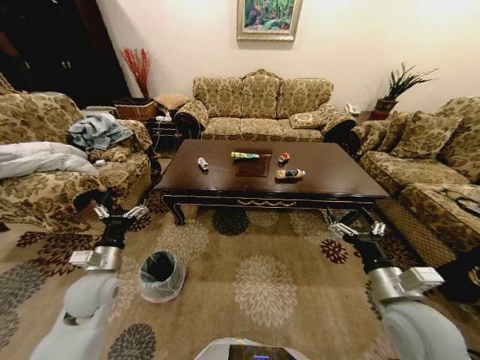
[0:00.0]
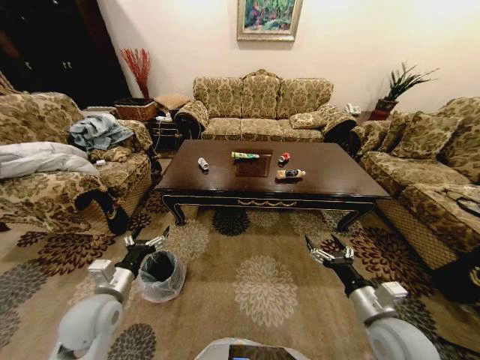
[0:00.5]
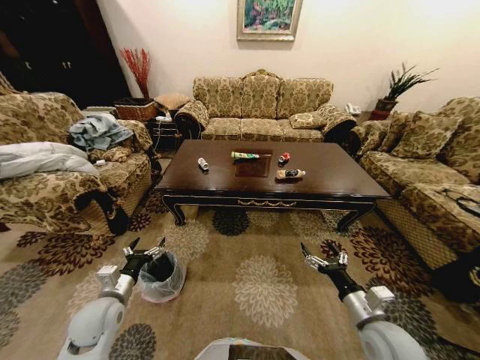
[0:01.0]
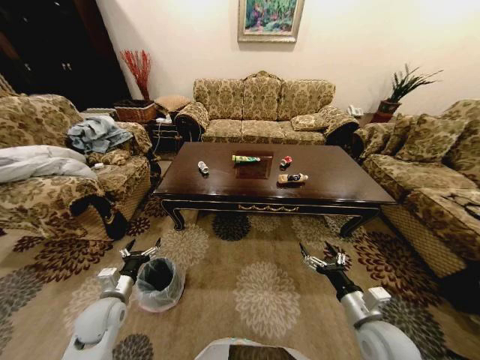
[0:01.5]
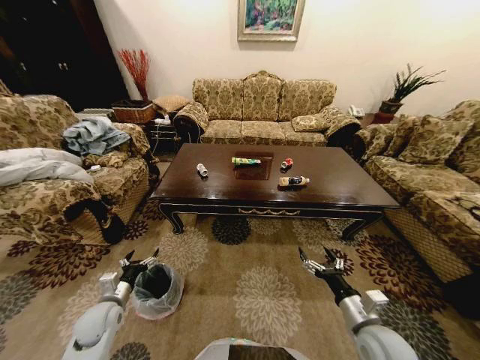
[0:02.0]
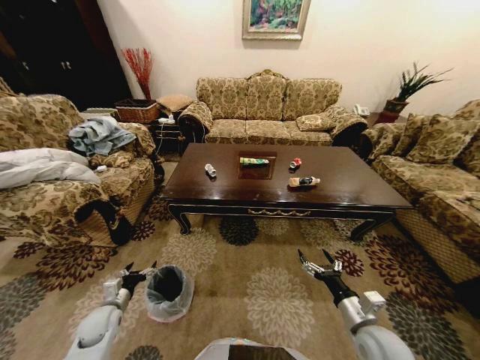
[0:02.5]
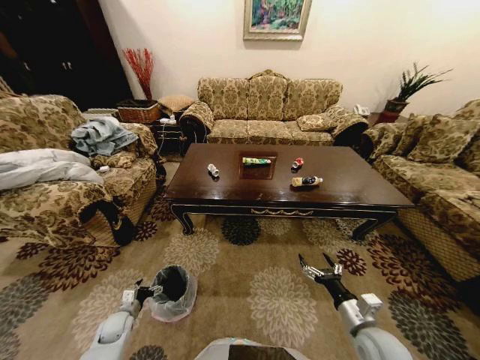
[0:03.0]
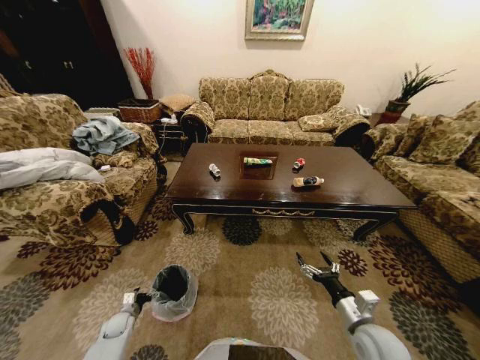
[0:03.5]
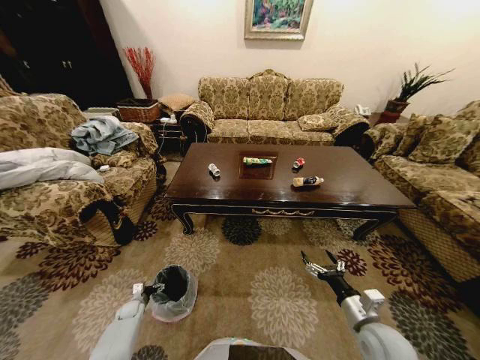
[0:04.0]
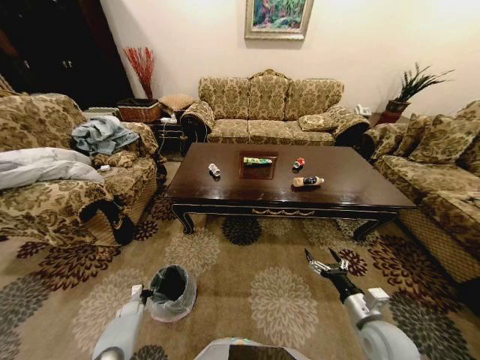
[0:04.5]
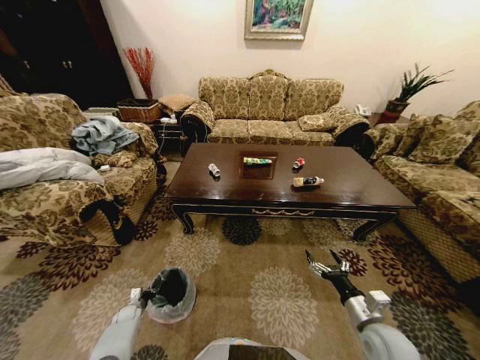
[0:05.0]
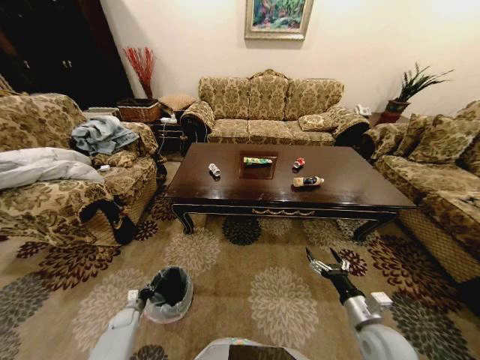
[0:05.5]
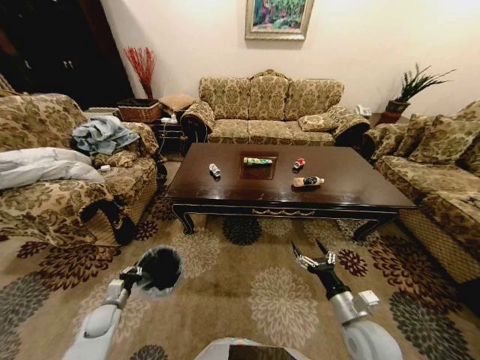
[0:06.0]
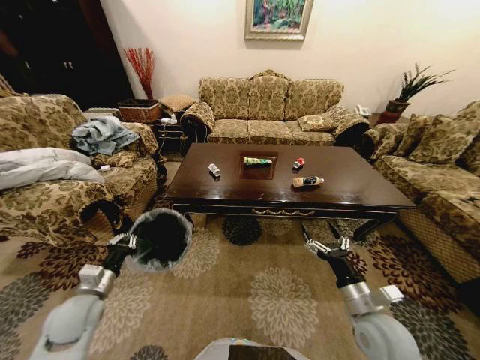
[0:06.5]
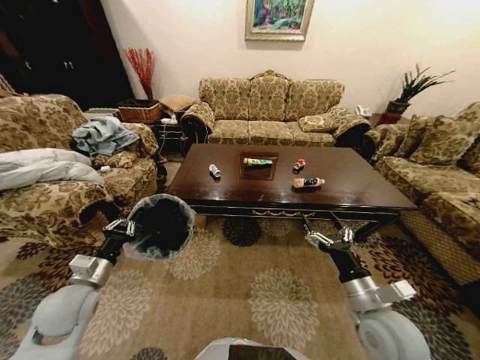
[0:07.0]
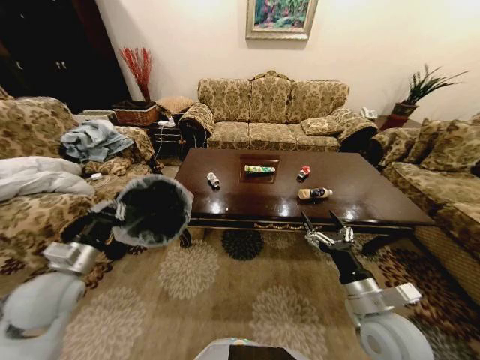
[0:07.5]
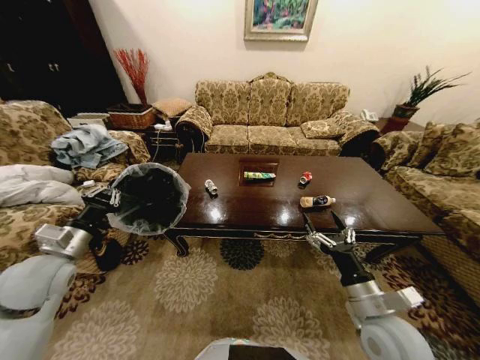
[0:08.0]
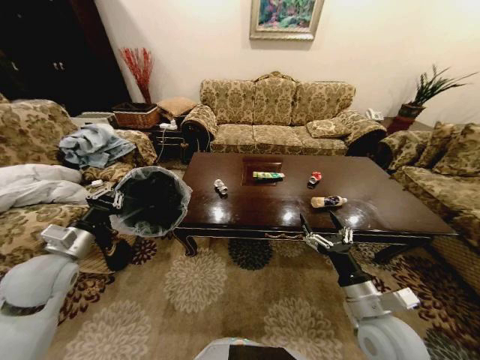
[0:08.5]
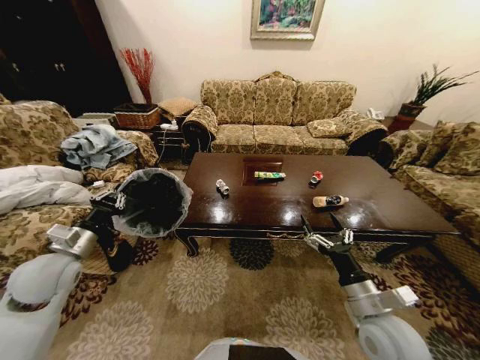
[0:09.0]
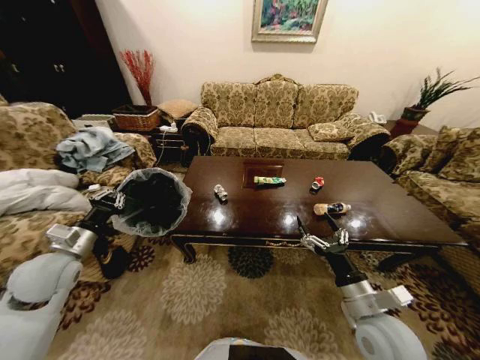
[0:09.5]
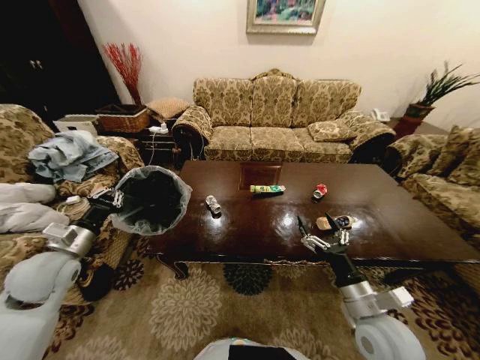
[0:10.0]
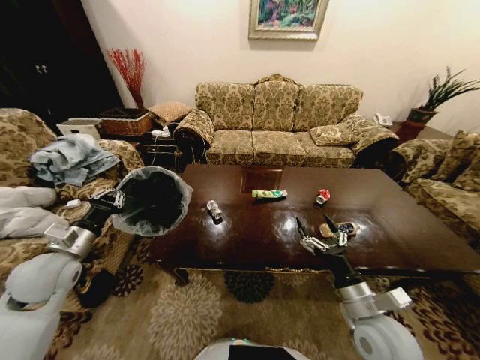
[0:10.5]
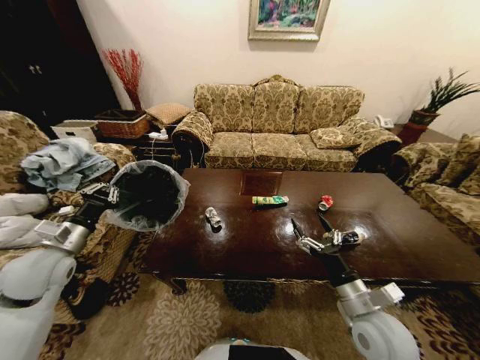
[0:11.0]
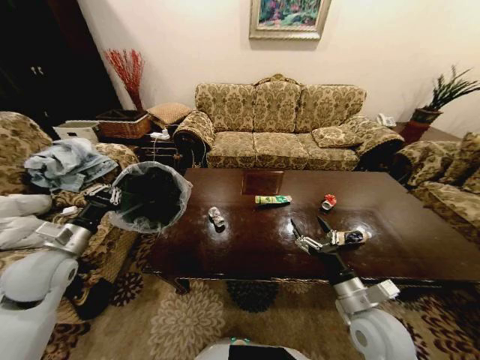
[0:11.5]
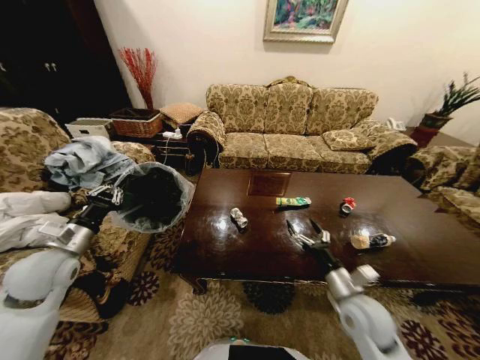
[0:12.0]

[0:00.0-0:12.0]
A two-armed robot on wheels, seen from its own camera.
Task of the whole recording: Move to the front of the table and place the trash on the table into the trash bin.
0:02.0 to 0:04.0: The left gripper heads downward, covering some 25 cm.
0:04.0 to 0:06.0: The left gripper is displaced upward by roughly 15 cm, and closes.
0:06.0 to 0:08.0: The right gripper goes some 10 cm upward; the left gripper heads upward, covering roughly 30 cm.
0:10.0 to 0:12.0: The right gripper moves forward, about 5 cm.

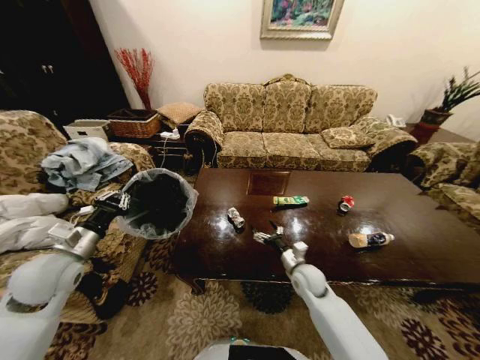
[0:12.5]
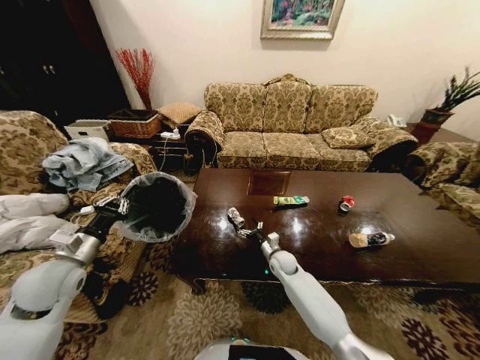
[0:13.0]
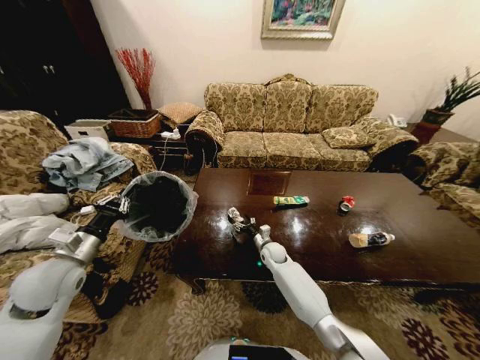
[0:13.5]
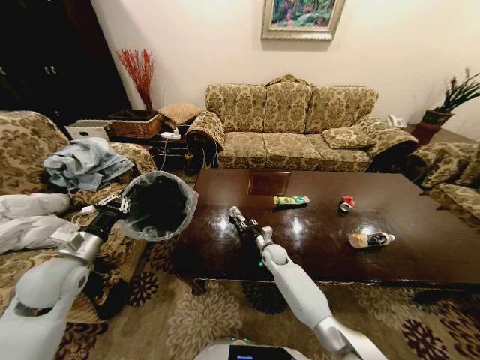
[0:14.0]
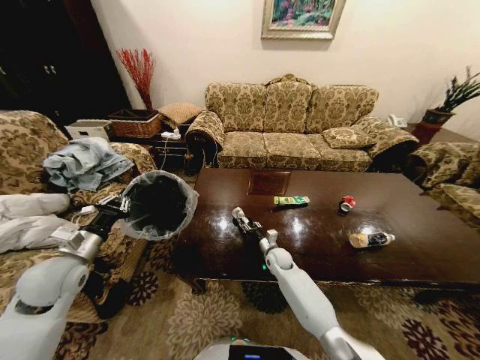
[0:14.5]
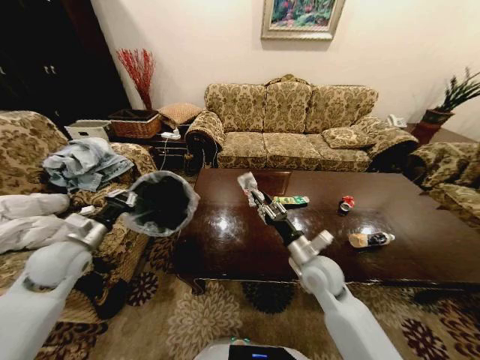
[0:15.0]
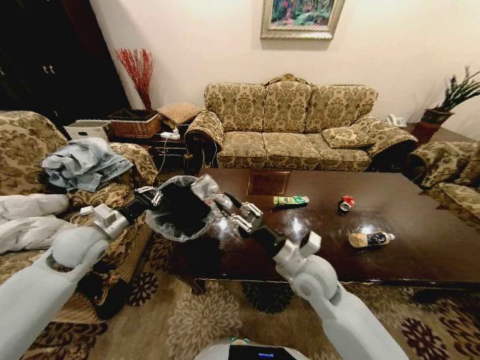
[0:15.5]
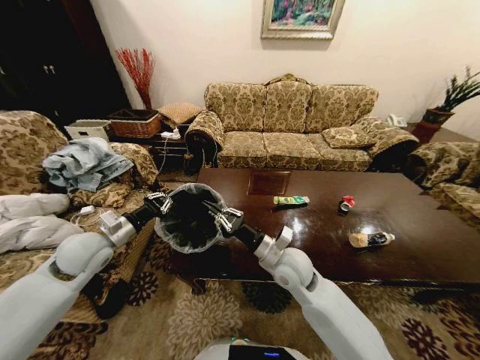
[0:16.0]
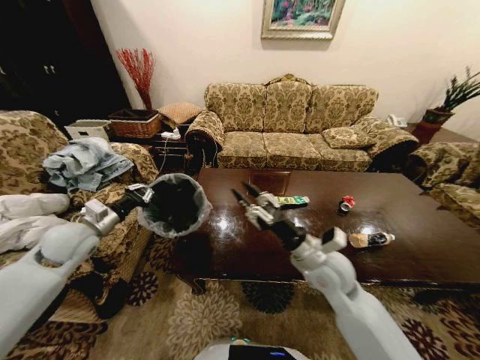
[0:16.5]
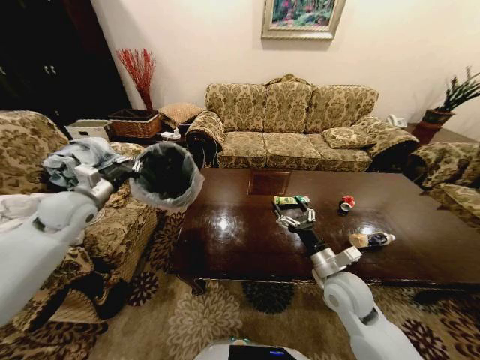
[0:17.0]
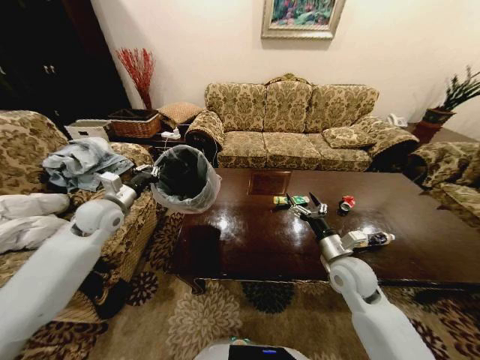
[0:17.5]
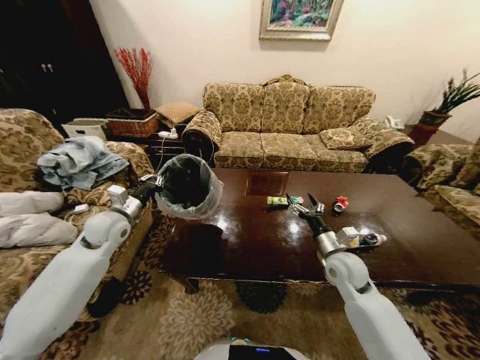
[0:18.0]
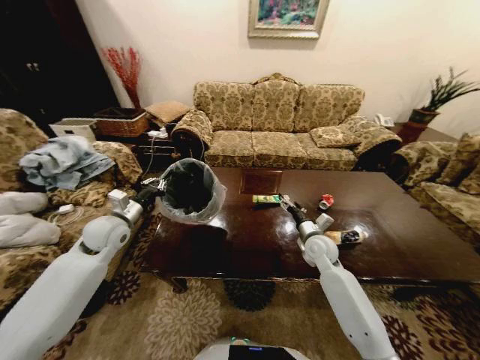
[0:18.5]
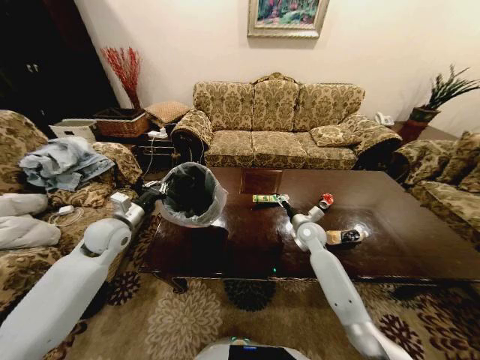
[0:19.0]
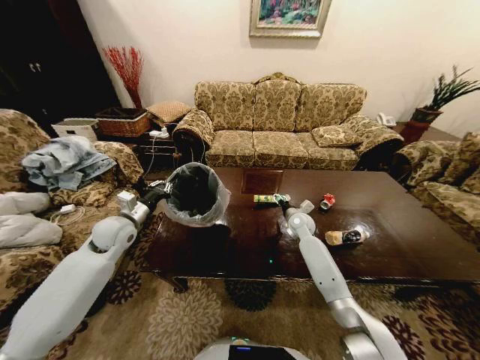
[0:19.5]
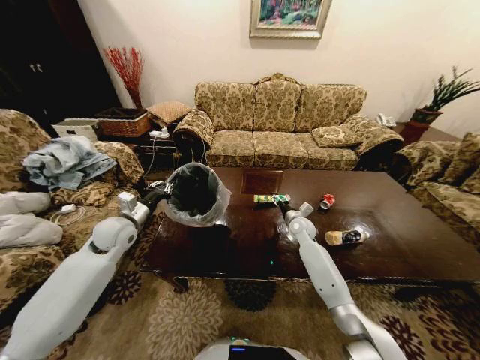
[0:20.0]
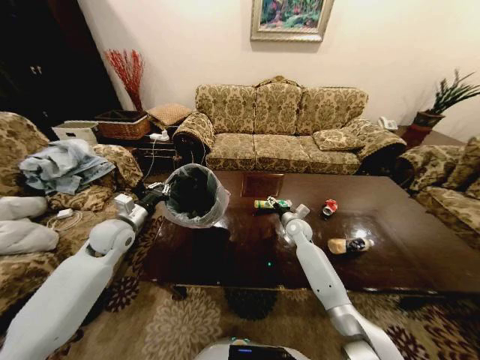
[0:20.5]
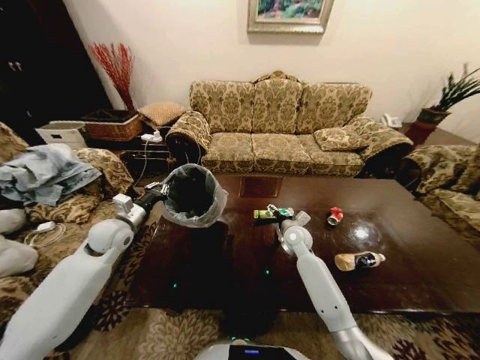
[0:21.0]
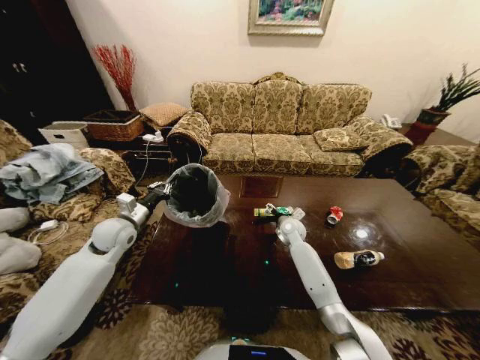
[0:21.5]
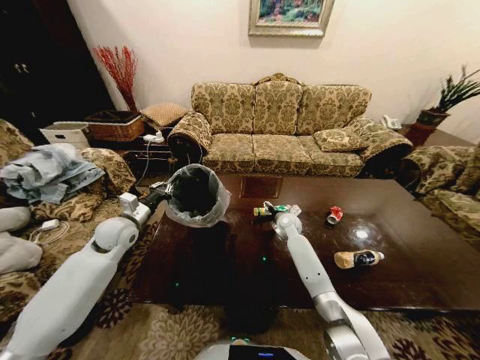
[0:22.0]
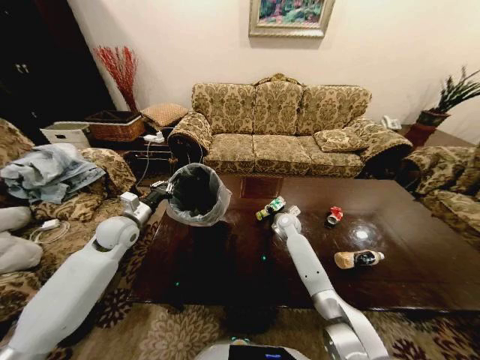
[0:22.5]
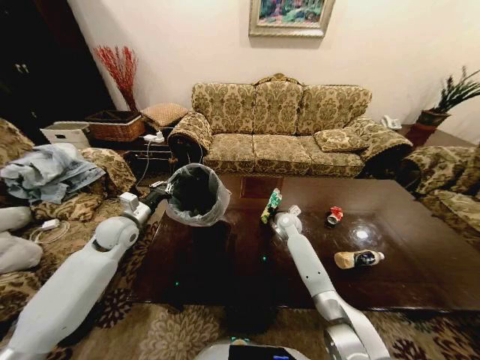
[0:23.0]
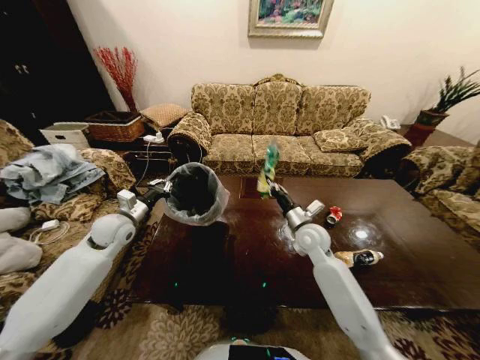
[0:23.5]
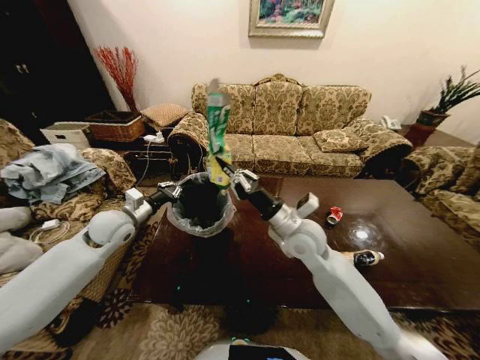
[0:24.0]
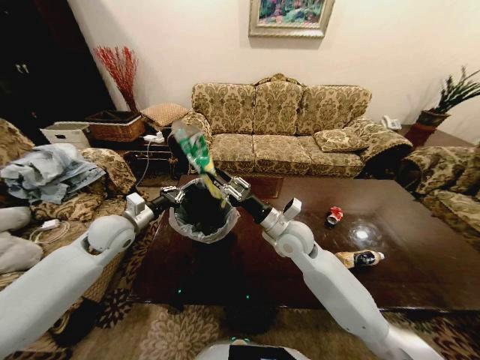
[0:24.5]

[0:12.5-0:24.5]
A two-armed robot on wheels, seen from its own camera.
Task of the whole recording: Move to the front of the table and place the trash on the table into the trash bin.
0:12.5 to 0:14.5: The right gripper shifts approximately 15 cm forward, downward and to the left, and closes.
0:14.5 to 0:16.5: The left gripper travels forward by about 10 cm; the right gripper heads upward and backward, covering some 30 cm.
0:16.5 to 0:18.5: The left gripper heads to the right, covering roughly 5 cm, and moves about 5 cm upward and comes back; the right gripper shifts some 15 cm forward and downward, and opens up.
0:18.5 to 0:20.5: The right gripper is displaced forward by roughly 10 cm.
0:20.5 to 0:22.5: The right gripper closes.
0:22.5 to 0:24.5: The right gripper shifts approximately 20 cm backward and upward.

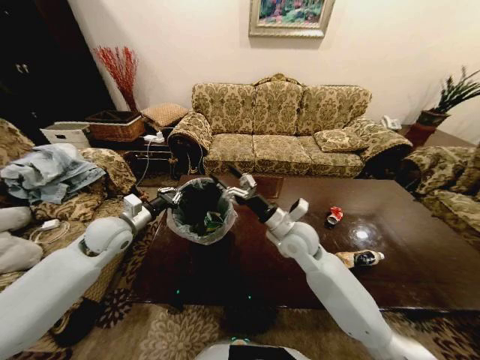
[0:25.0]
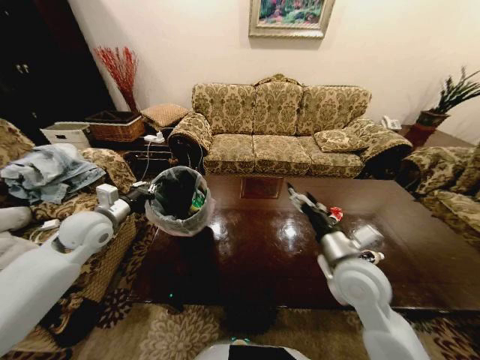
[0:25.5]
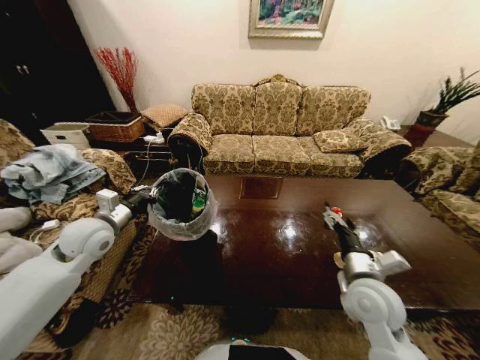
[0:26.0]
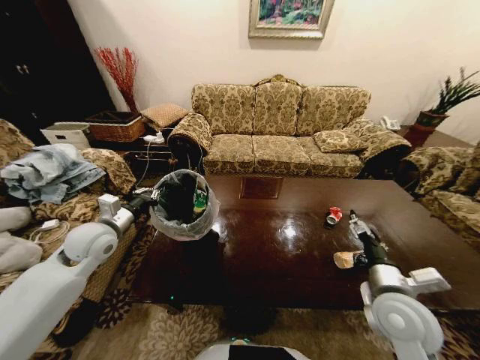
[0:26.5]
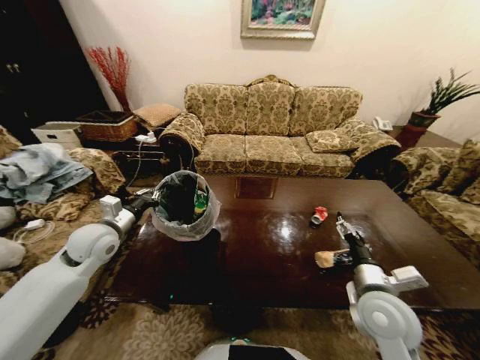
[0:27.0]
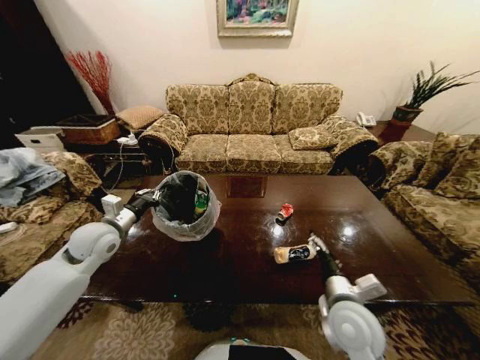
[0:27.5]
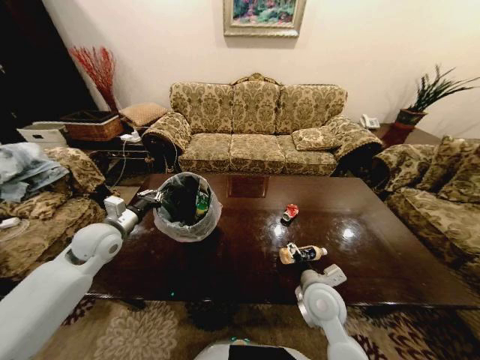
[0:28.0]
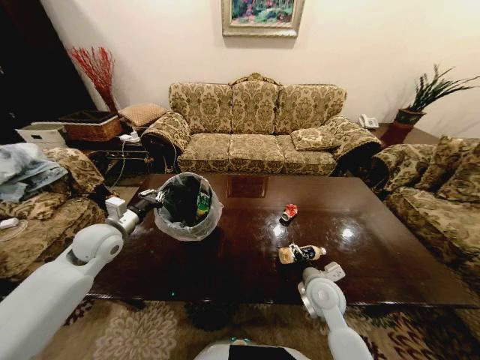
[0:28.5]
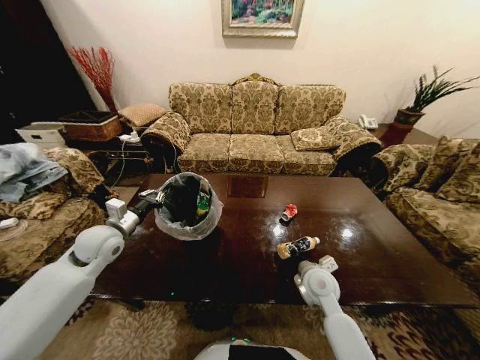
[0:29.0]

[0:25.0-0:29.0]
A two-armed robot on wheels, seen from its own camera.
Task of the whole recording: Move to the front of the table and place the trash on the table into the trash bin.
0:25.0 to 0:27.0: The right gripper travels backward and to the right by approximately 20 cm.
0:27.0 to 0:29.0: The right gripper moves downward, forward and to the left, approximately 15 cm, and closes its fingers.
